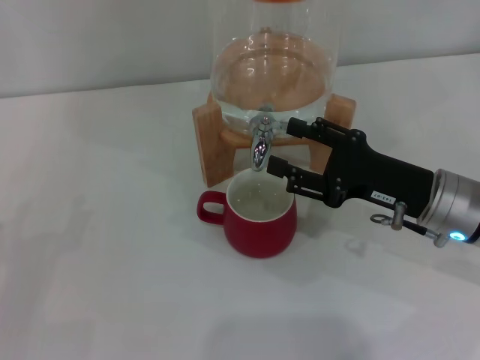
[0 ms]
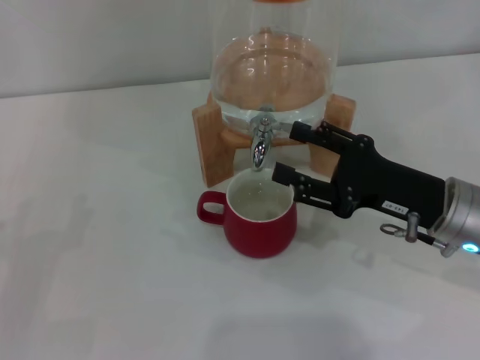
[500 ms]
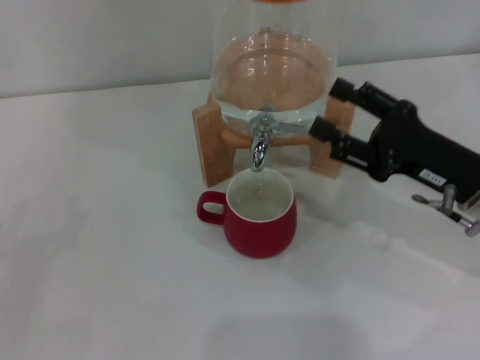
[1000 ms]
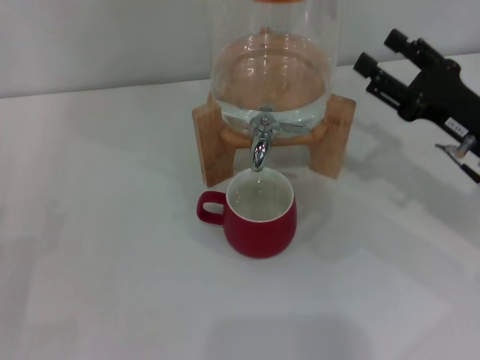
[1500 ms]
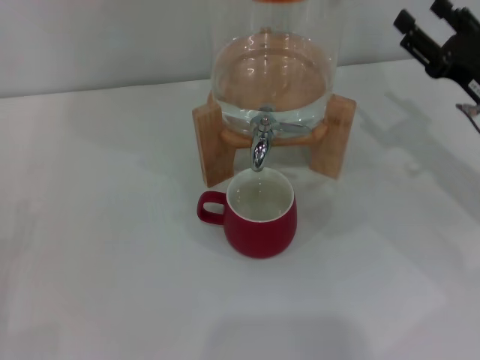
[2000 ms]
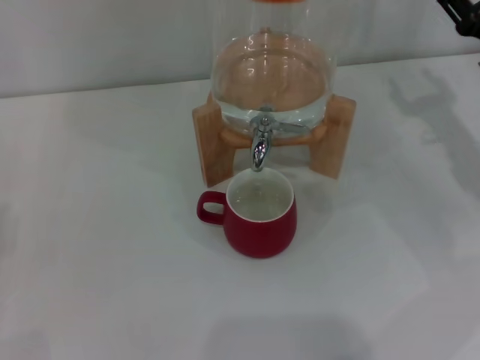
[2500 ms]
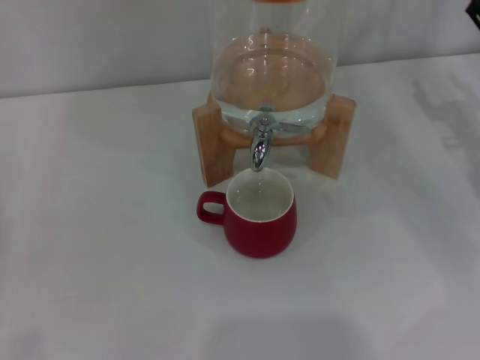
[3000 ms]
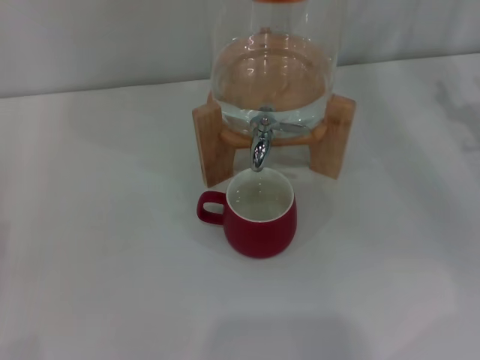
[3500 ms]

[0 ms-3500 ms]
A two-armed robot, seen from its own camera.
Task of the whole recording: the left gripper pick up the red cup and place it horizontally under the faucet, the right gripper turn on the faucet to fill the cup, and then turn off the faucet.
0 ms to 2000 ms: The right gripper shifts approximately 10 cm to the right.
2000 ms to 3500 ms: The right gripper goes some 5 cm to the right.
